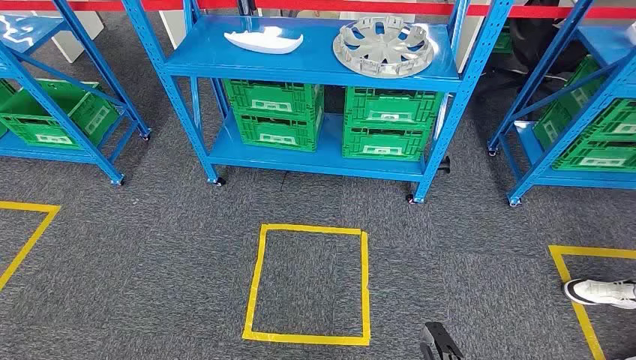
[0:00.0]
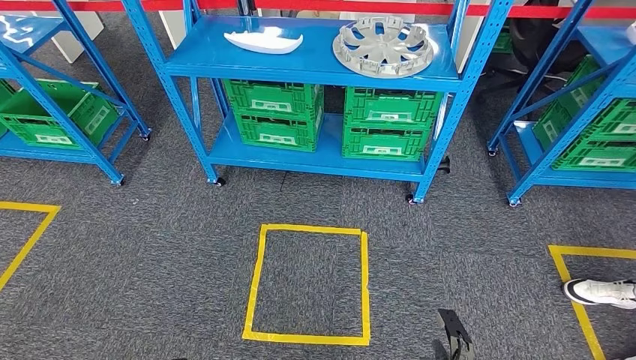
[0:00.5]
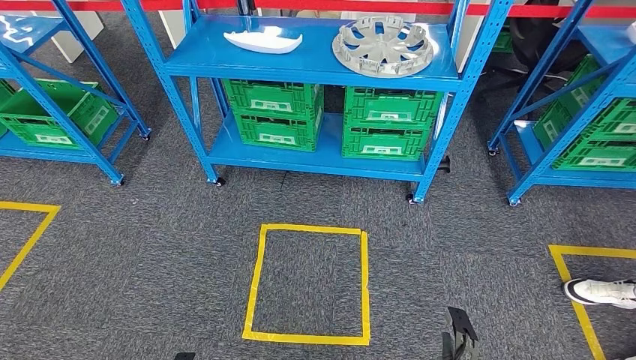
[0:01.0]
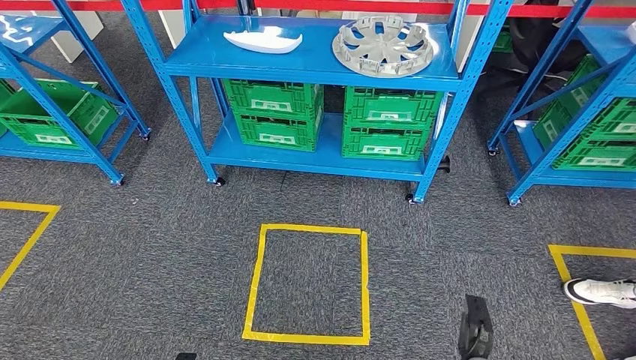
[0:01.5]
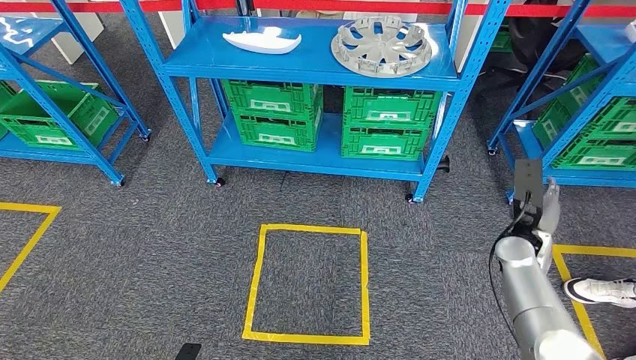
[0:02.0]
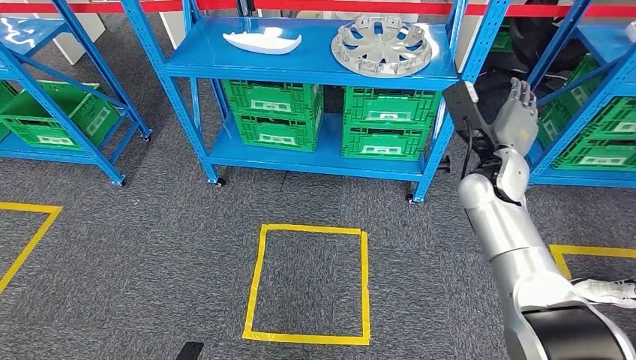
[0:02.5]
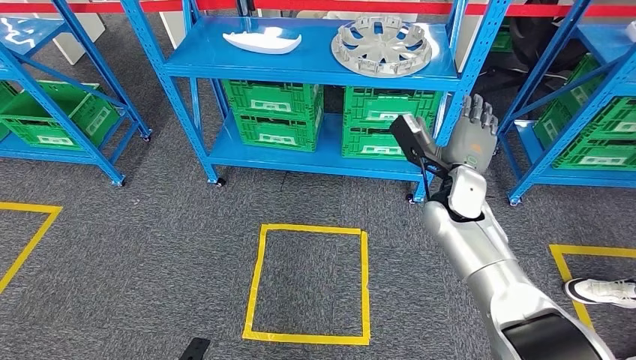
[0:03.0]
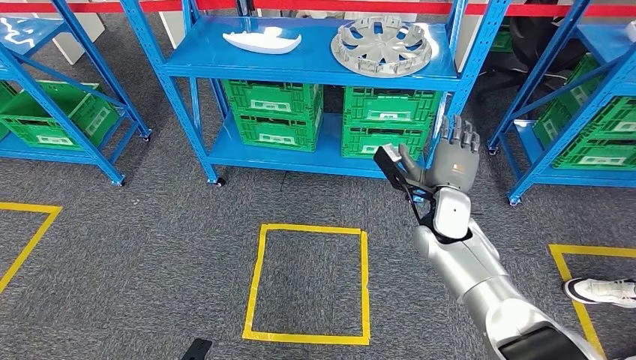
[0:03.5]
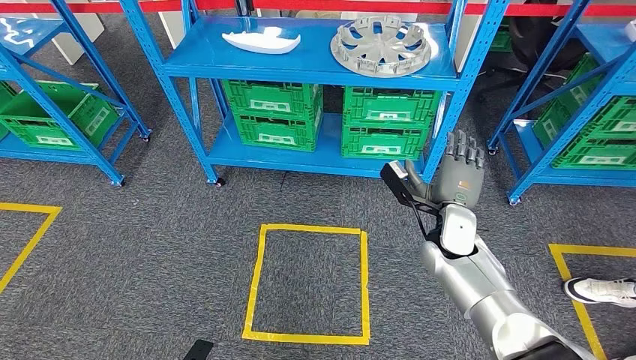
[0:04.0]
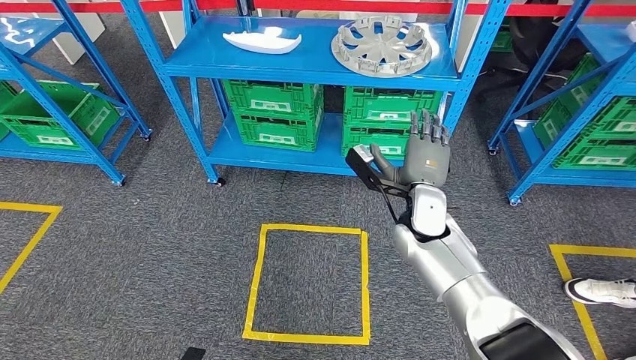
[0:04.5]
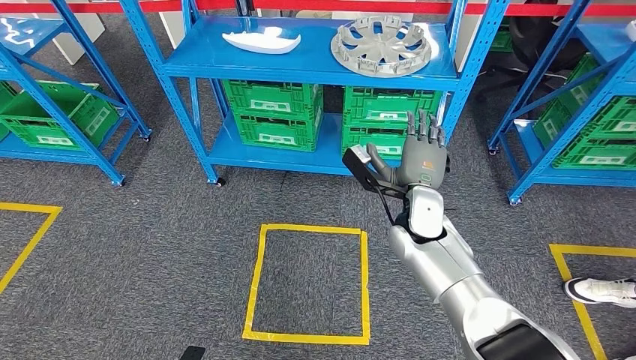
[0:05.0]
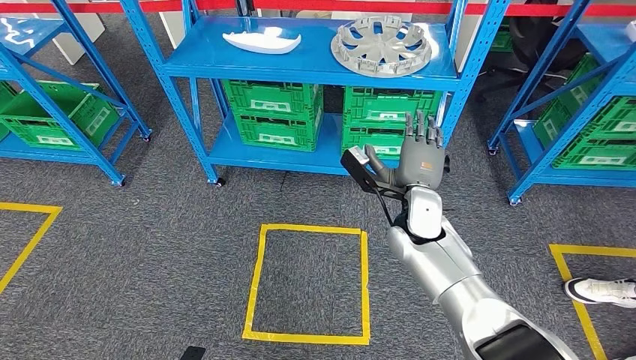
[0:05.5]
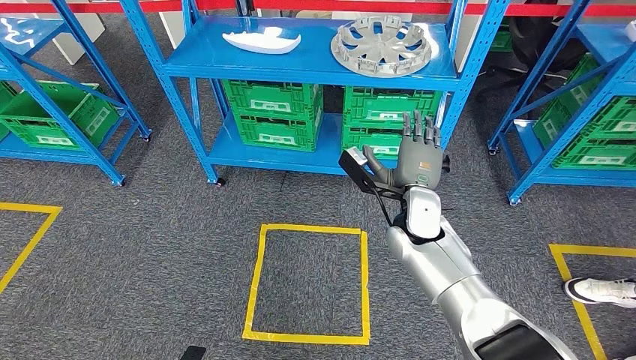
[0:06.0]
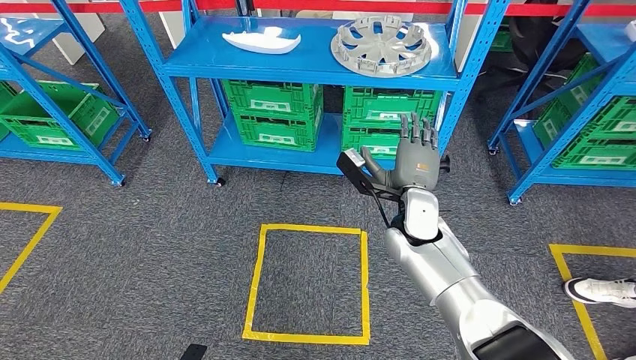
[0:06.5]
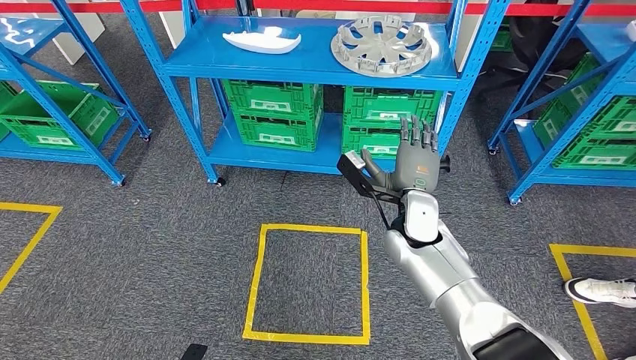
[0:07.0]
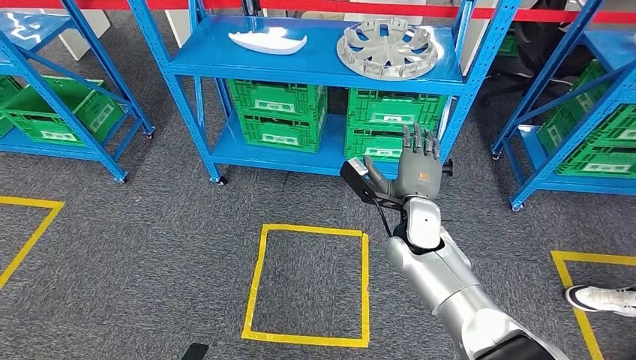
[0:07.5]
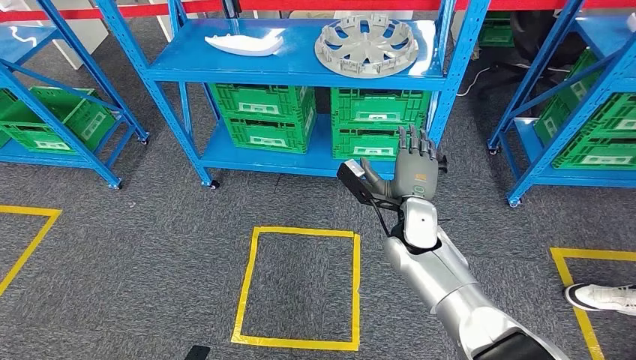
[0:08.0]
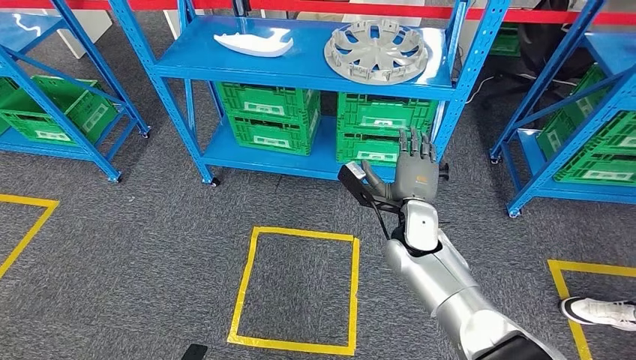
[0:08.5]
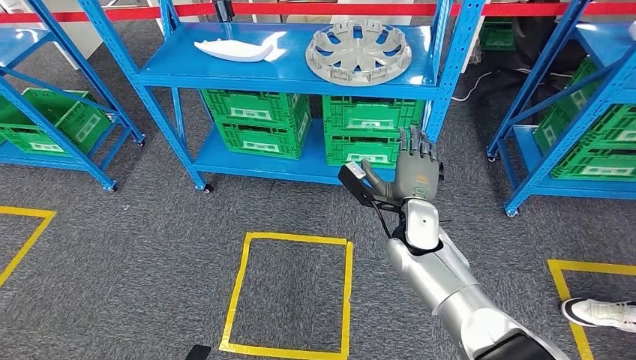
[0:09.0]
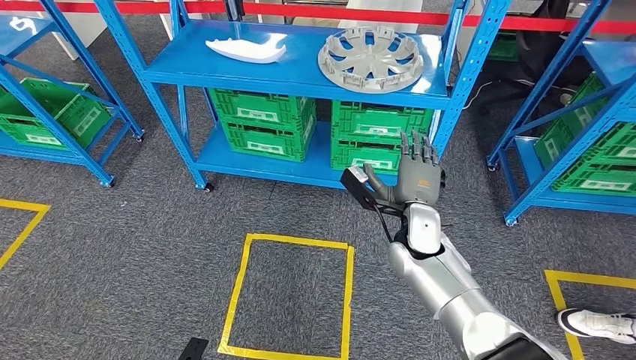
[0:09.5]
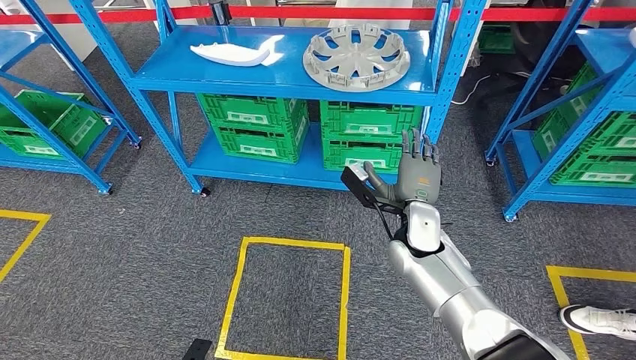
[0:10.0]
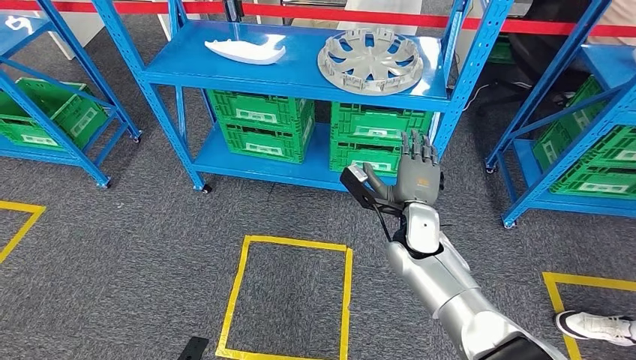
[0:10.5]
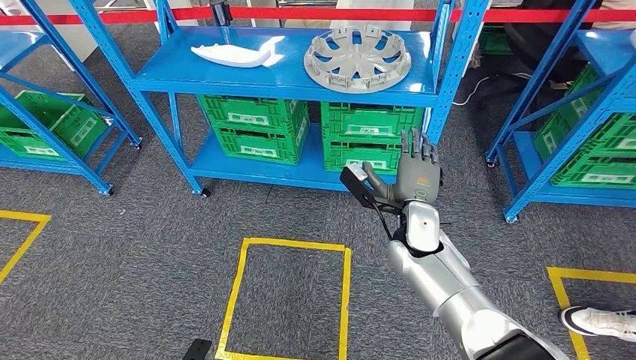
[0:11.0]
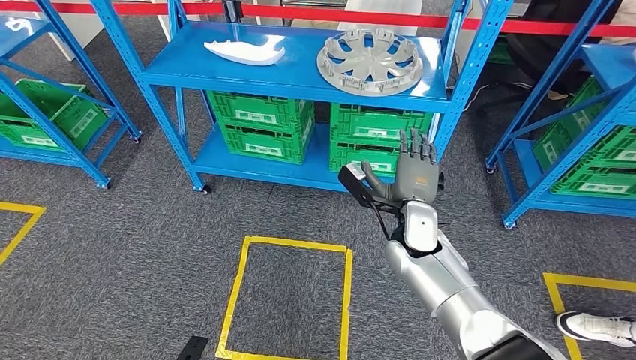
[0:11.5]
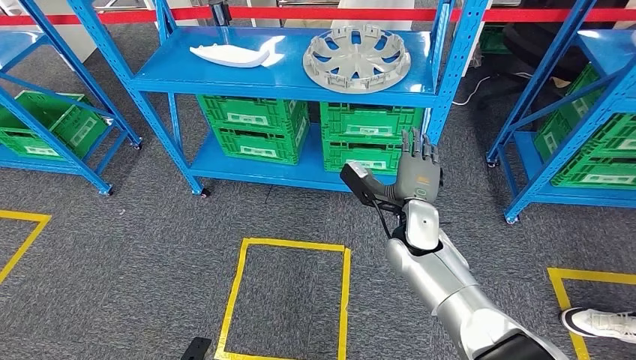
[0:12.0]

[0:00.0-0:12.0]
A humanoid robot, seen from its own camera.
0:02.0 to 0:04.0: The right hand shifts some 10 cm to the left and forward.
0:04.0 to 0:06.0: The right hand travels to the left by roughly 10 cm.
0:10.0 to 0:12.0: Neither hand changes place.

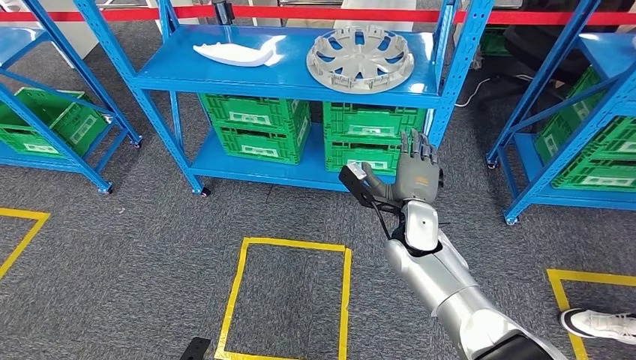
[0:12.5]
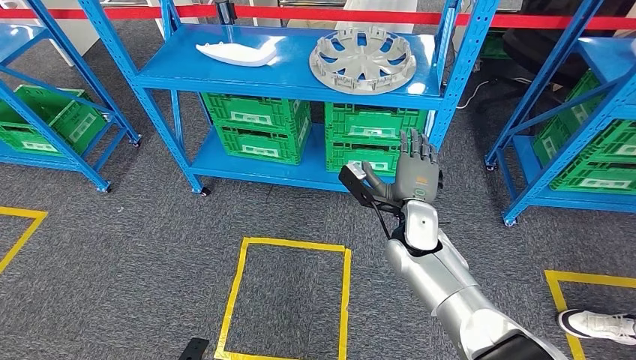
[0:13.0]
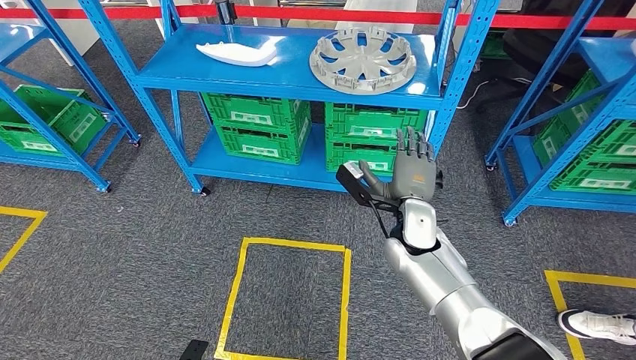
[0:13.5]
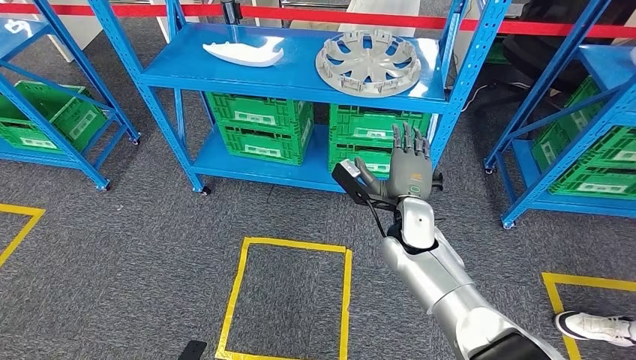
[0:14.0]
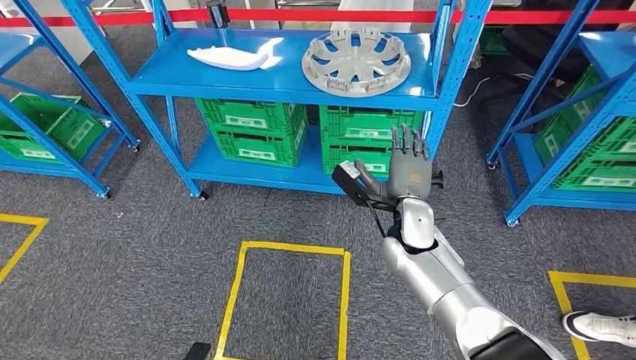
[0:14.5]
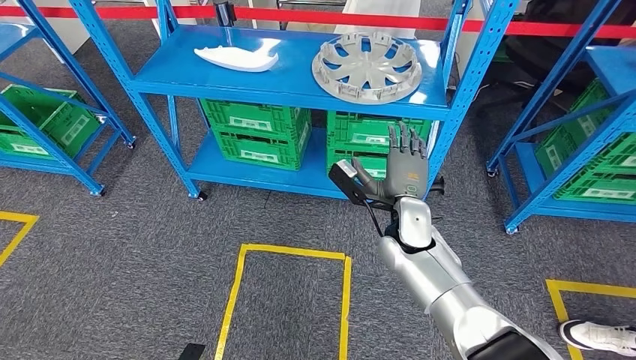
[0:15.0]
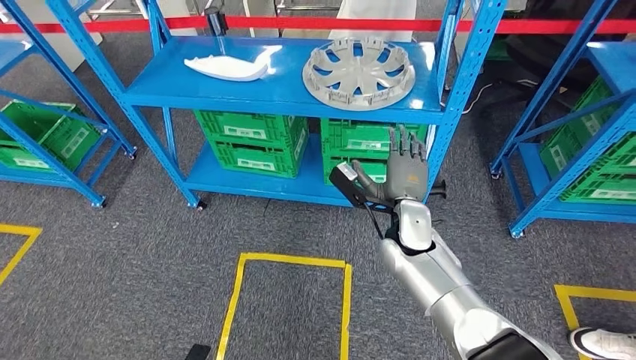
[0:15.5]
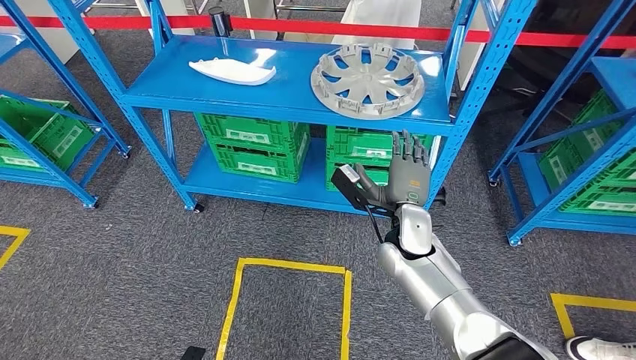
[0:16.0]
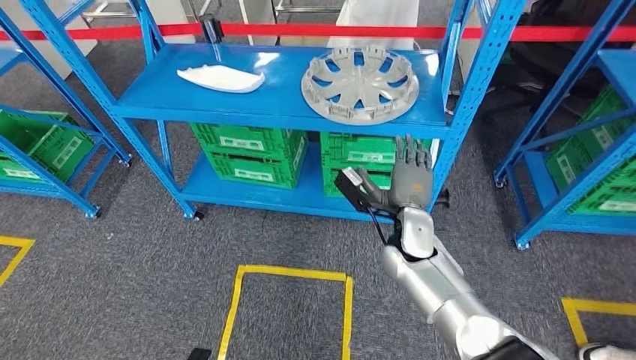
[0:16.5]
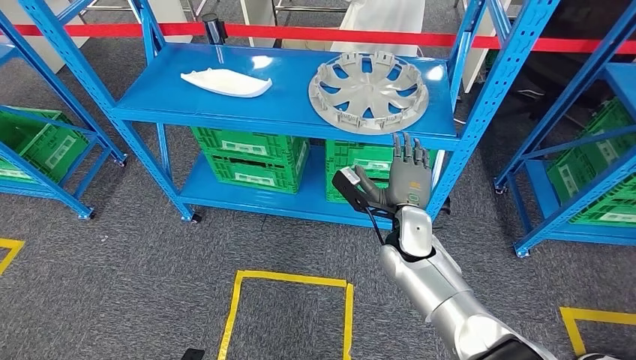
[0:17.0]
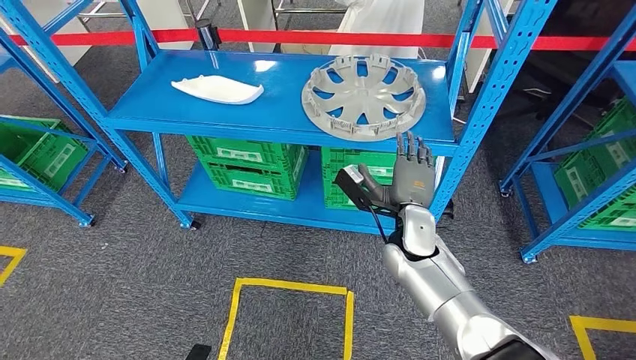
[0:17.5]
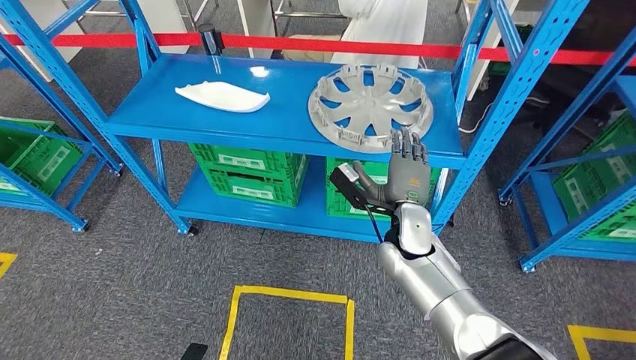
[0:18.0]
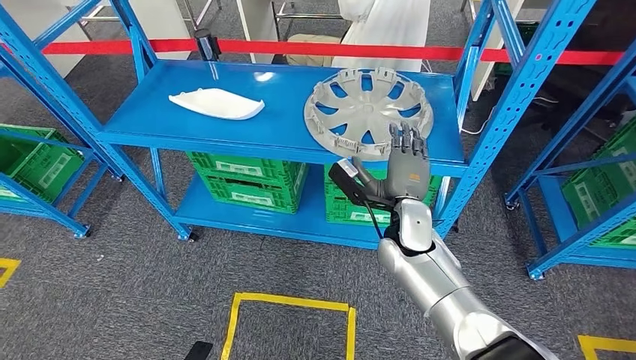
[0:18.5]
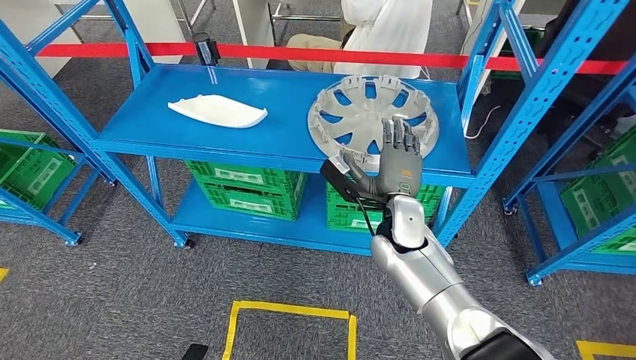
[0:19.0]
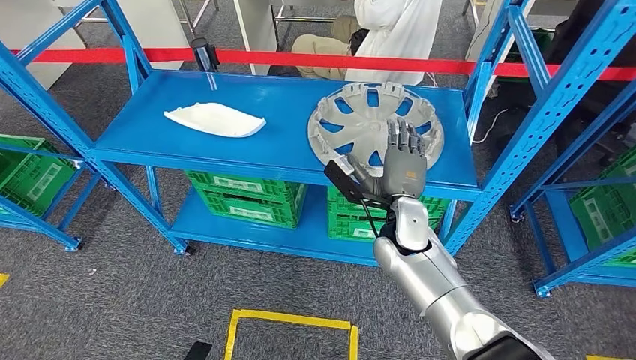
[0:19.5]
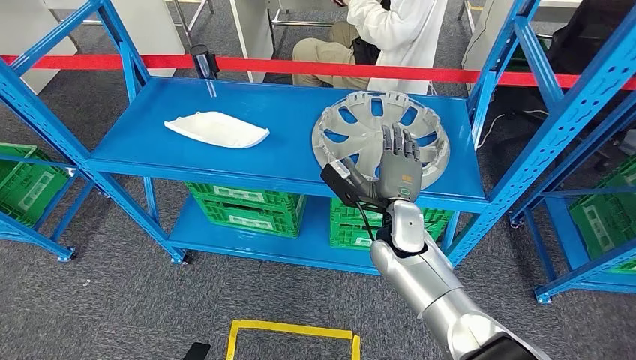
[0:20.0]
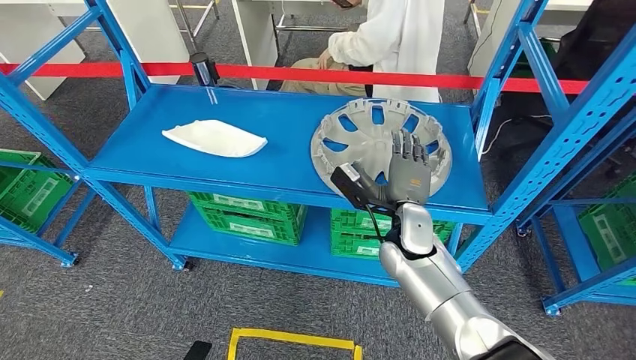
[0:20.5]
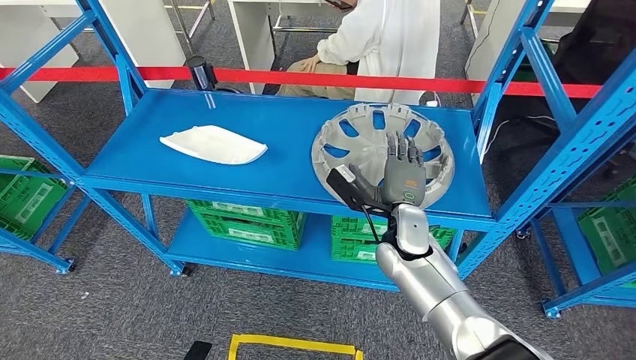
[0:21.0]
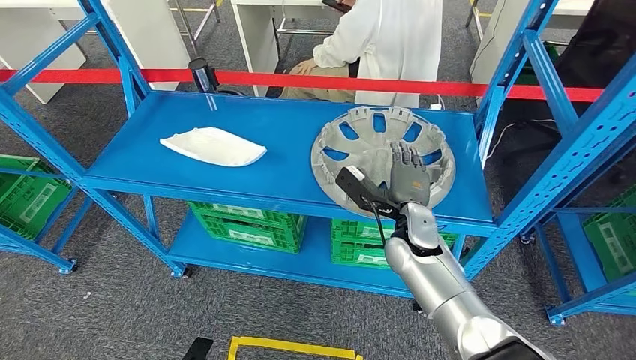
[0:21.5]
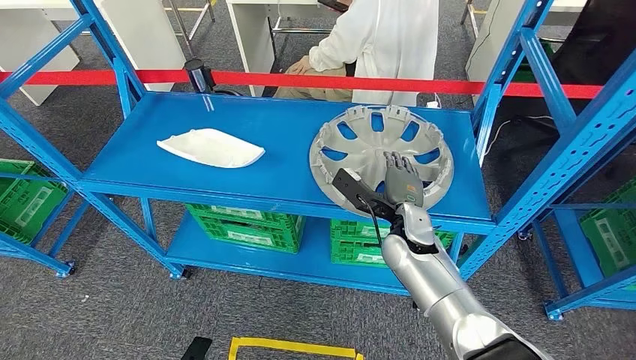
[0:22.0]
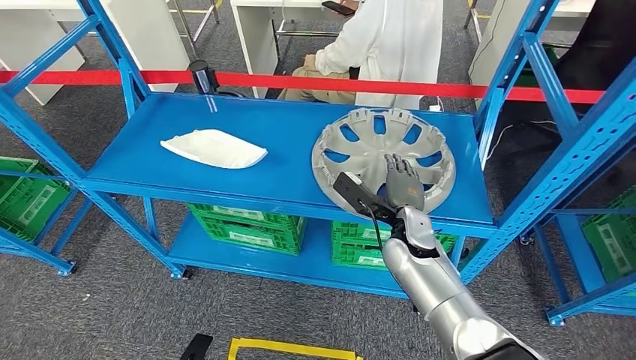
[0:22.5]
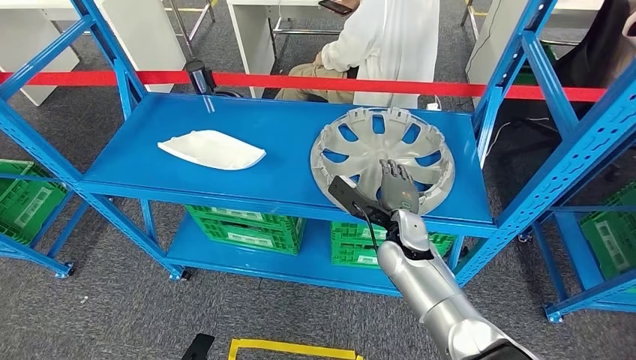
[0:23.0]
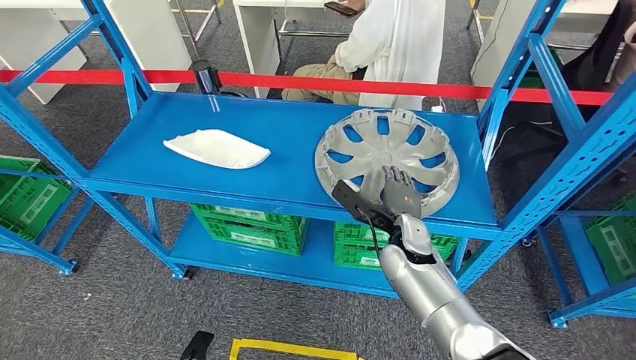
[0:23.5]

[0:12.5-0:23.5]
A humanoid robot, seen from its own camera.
0:12.5 to 0:14.5: Both hands stay about where they are.
0:21.5 to 0:23.5: The hands make only small movements.
